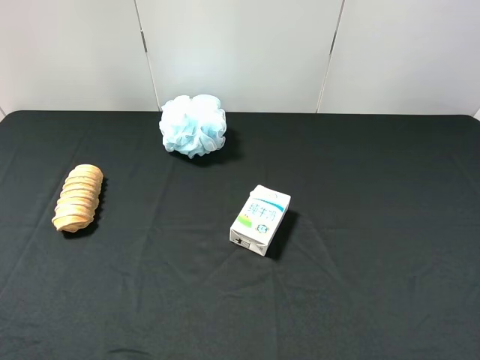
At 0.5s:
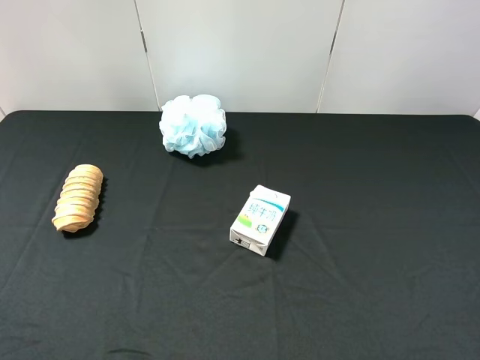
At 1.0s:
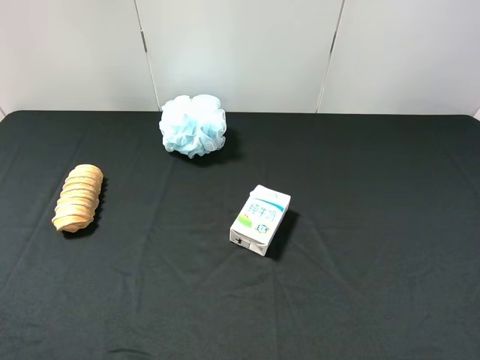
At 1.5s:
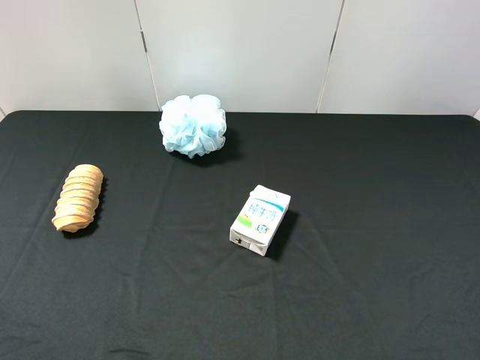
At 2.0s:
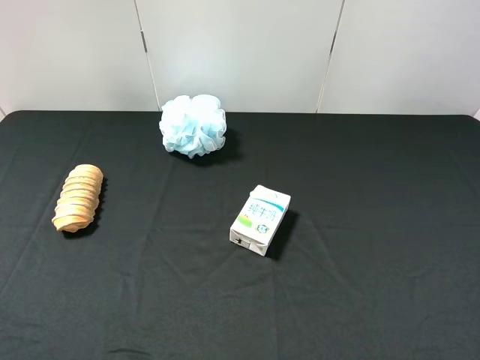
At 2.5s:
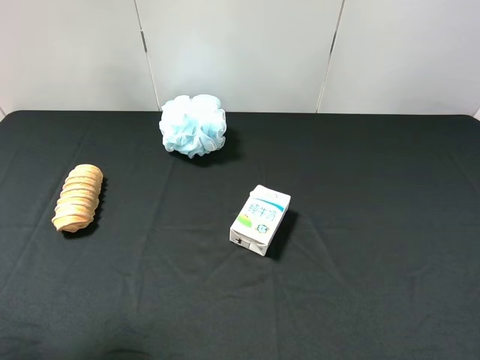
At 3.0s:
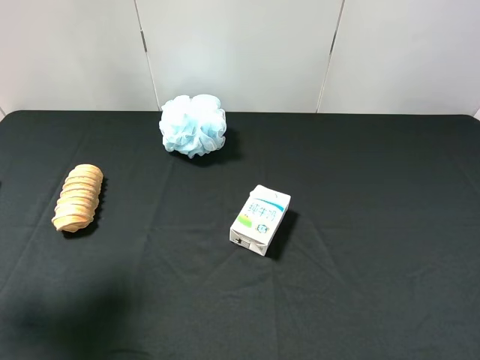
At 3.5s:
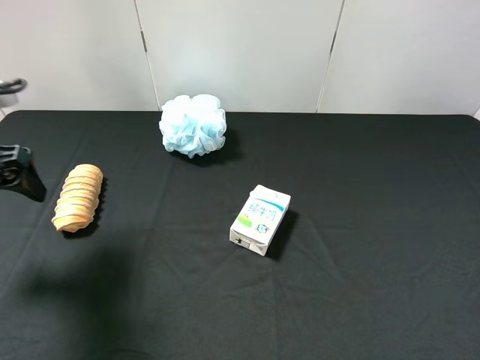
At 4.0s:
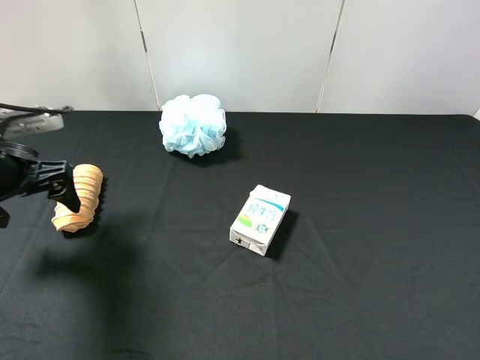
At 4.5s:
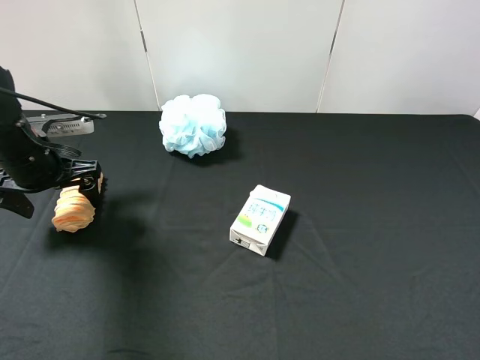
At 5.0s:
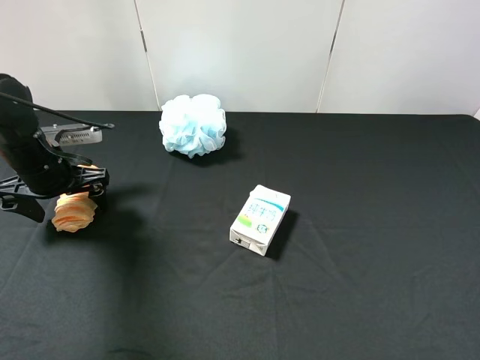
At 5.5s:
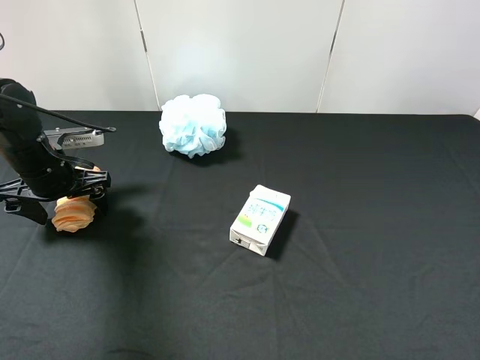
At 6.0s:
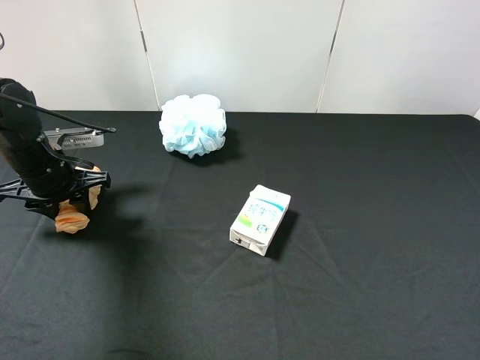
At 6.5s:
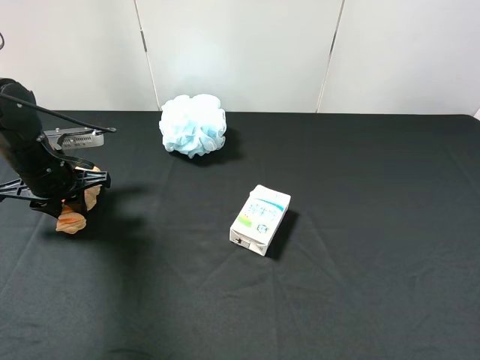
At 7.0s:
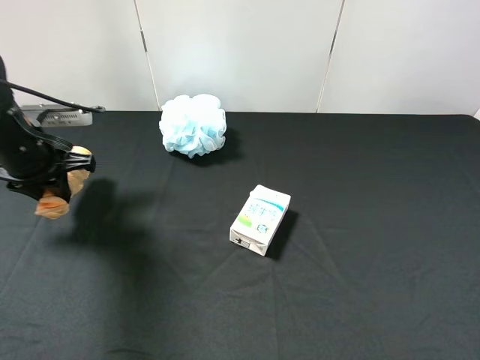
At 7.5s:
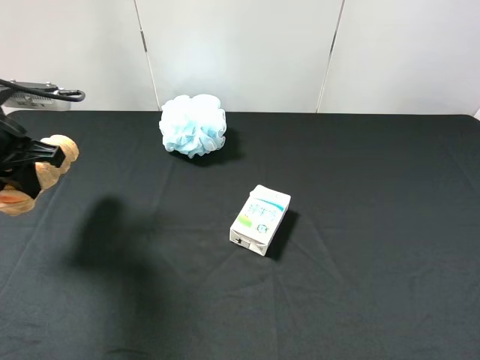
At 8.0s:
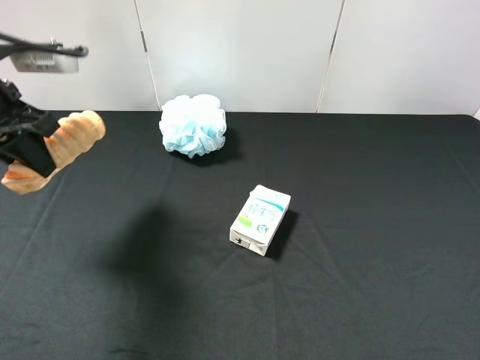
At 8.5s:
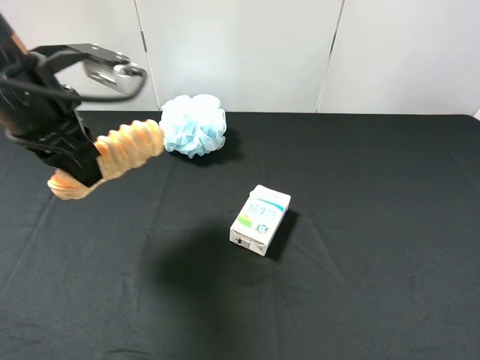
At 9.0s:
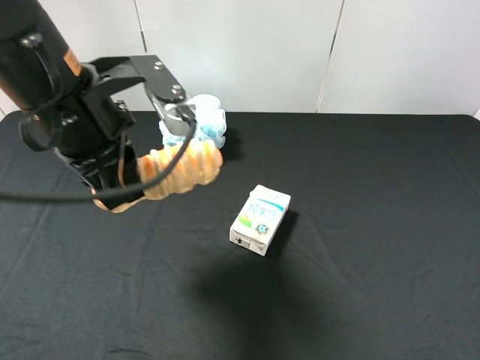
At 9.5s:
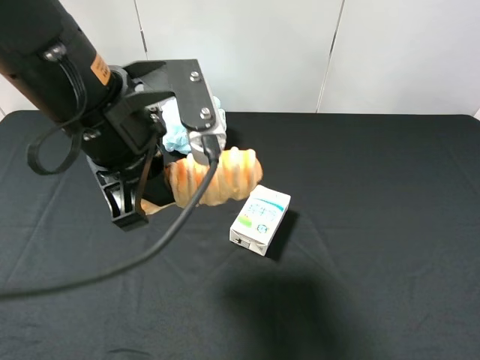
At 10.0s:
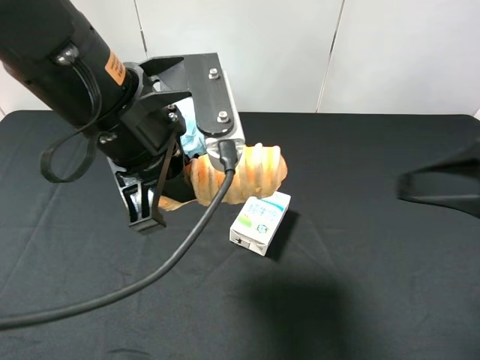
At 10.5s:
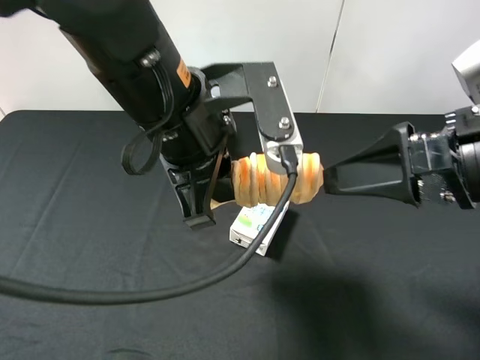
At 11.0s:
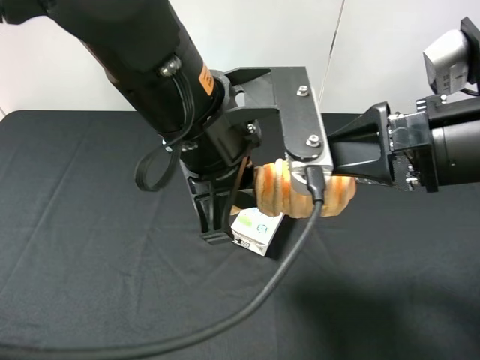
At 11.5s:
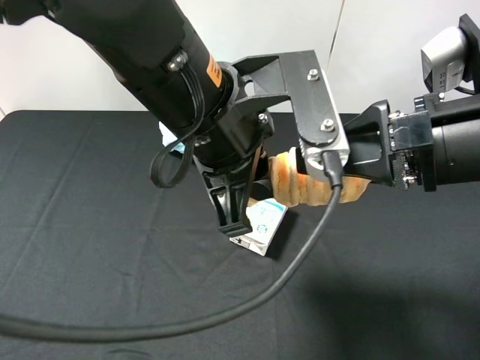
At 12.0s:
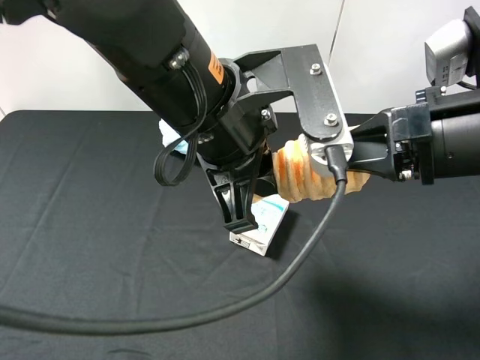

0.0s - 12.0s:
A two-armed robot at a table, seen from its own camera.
Task of the whole recording: use the left gripper to pick up the item and transfer it from the left gripper to the right gripper.
2.0s - 4.0s: The left gripper is displaced forward and downward by roughly 30 cm.
4.0s - 6.0s: The left gripper goes roughly 10 cm downward and forward, and closes its fingers.
6.0s - 8.0s: The left gripper goes some 15 cm upward.
8.0s - 10.0s: The left gripper heads to the right, covering some 20 cm, while the right gripper is displaced forward and to the left by about 10 cm.
10.0s - 12.0s: The left gripper heads to the right, covering about 5 cm. The right gripper is displaced forward by approximately 5 cm, and closes up.

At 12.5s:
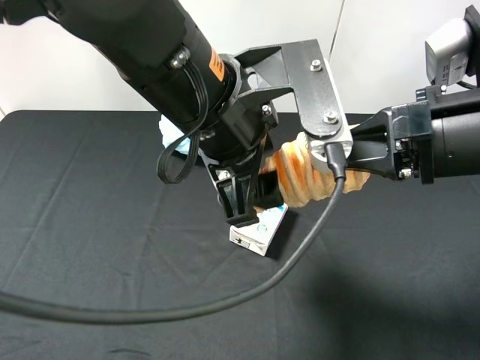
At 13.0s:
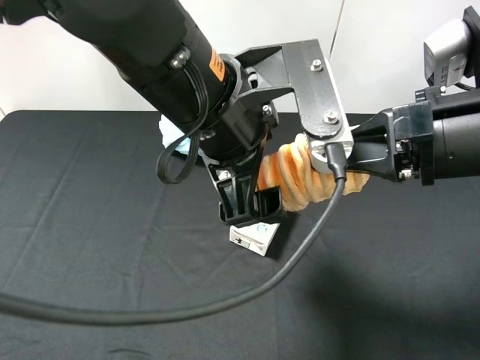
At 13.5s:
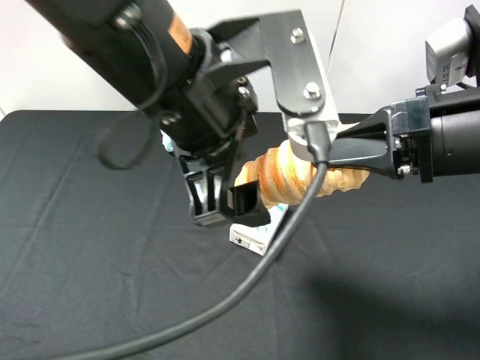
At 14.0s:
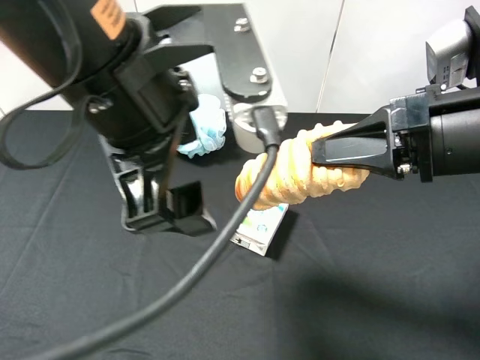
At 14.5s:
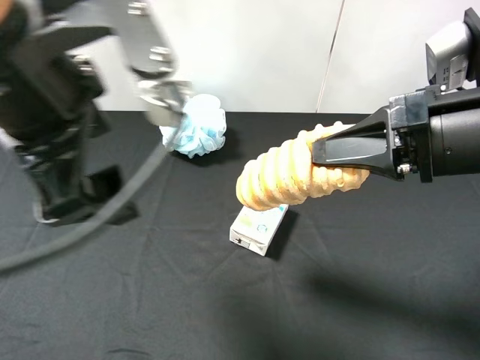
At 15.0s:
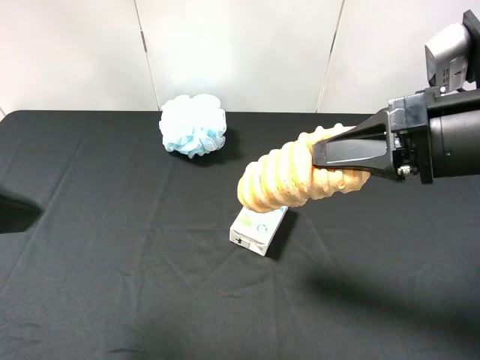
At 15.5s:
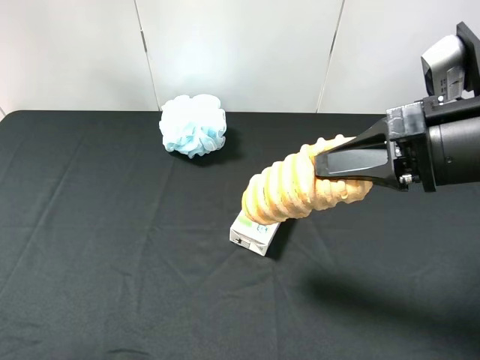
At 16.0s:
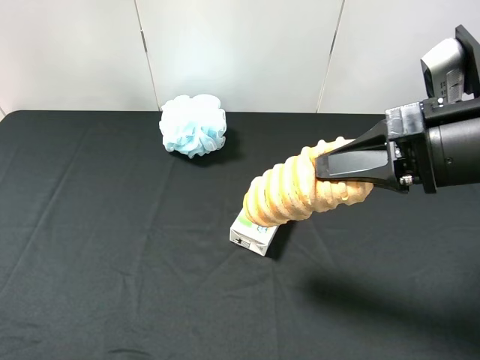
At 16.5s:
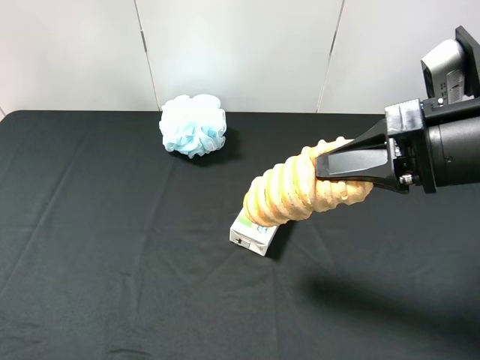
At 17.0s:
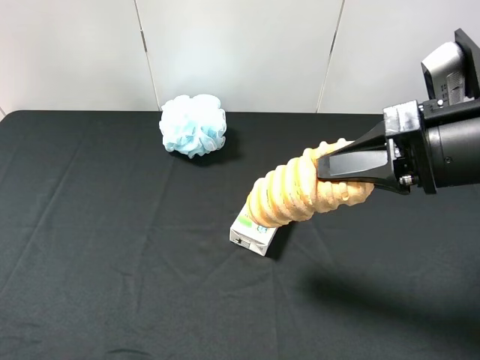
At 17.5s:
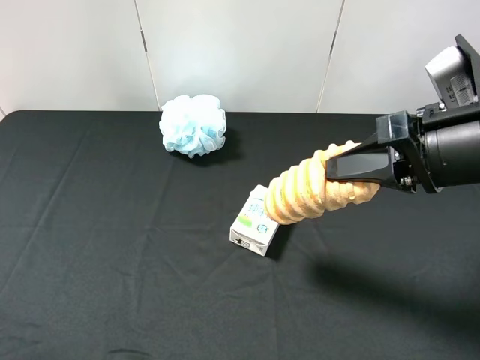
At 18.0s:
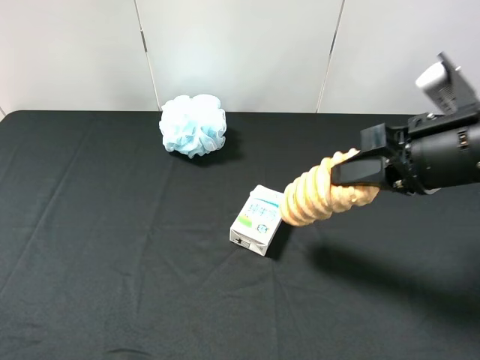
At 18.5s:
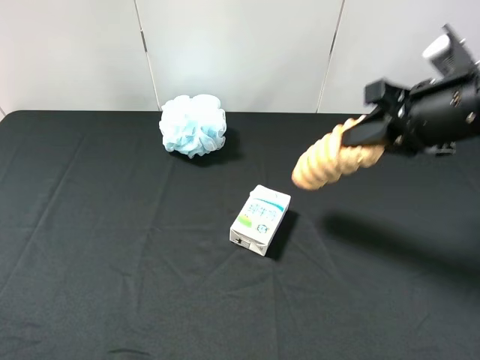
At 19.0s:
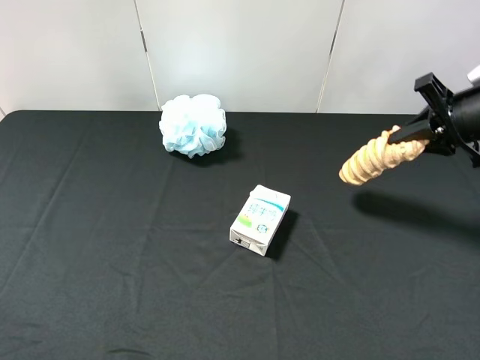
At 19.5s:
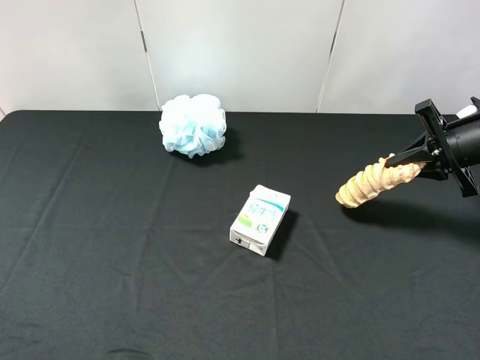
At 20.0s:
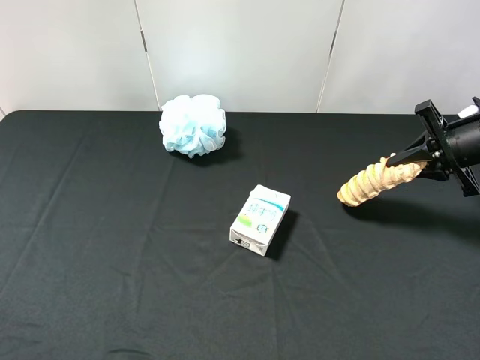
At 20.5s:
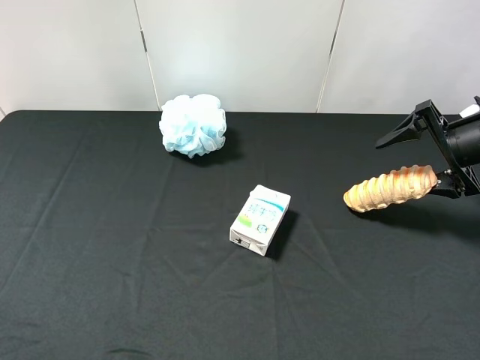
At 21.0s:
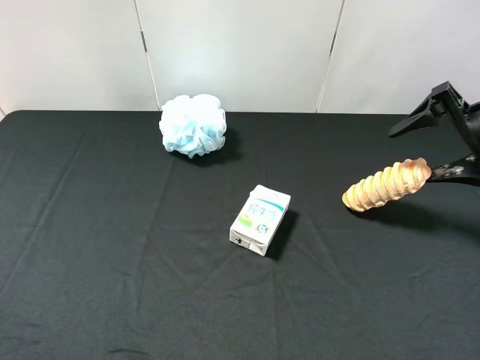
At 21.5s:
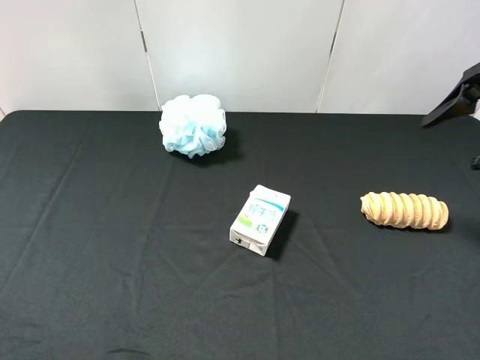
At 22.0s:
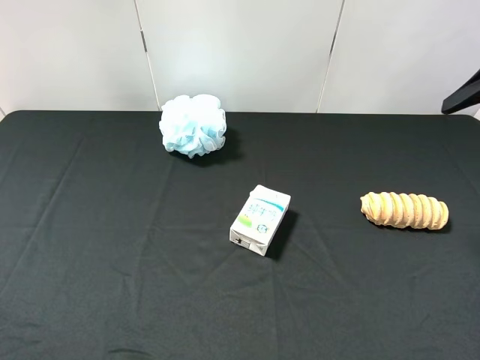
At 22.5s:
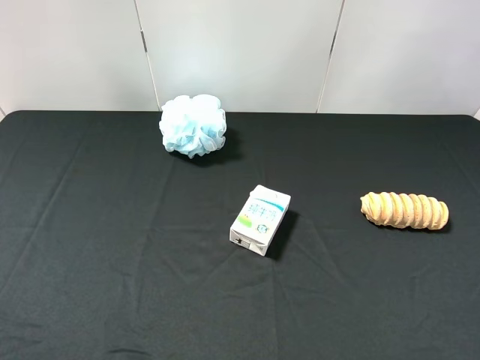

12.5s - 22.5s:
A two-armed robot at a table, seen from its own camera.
Task of the whole recording: use the left gripper to pick up the item and transfer it from the left gripper to the right gripper.
12.5s - 14.5s: The left gripper moves to the left and upward, some 15 cm.
14.5s - 16.5s: The left gripper is displaced to the left and backward by about 20 cm.
16.5s - 18.5s: The right gripper travels forward by approximately 10 cm.
18.5s - 20.5s: The right gripper travels to the right, downward and forward by roughly 15 cm, and opens.
20.5s - 22.5s: The right gripper travels upward and backward by approximately 25 cm.

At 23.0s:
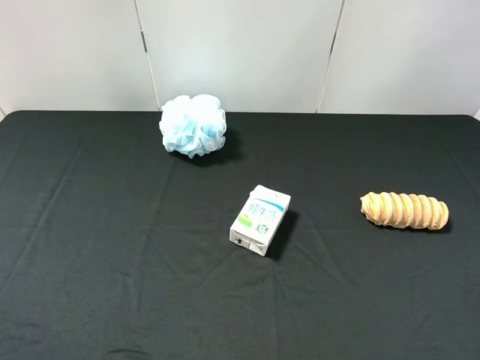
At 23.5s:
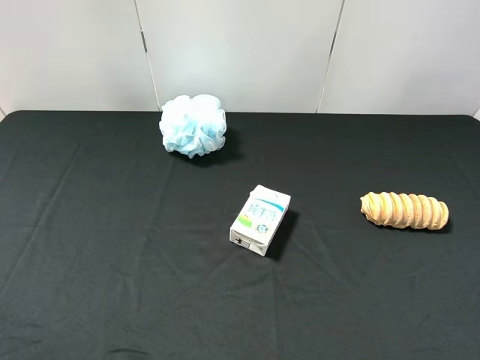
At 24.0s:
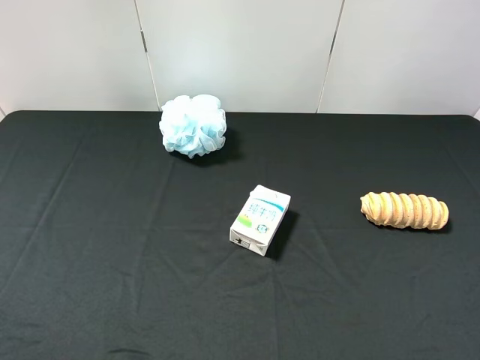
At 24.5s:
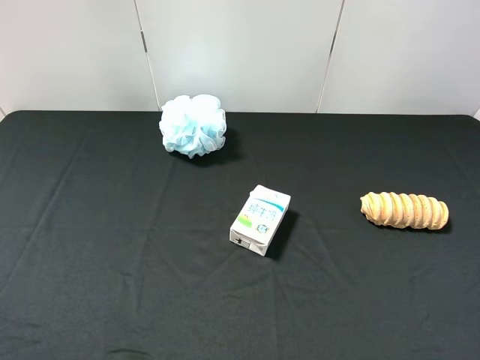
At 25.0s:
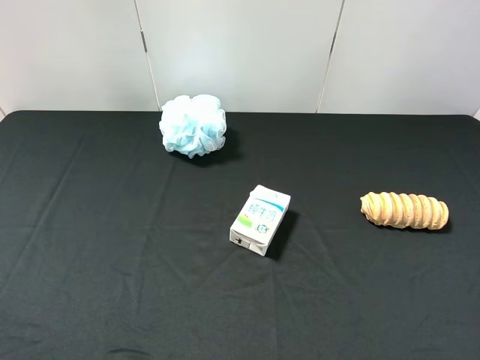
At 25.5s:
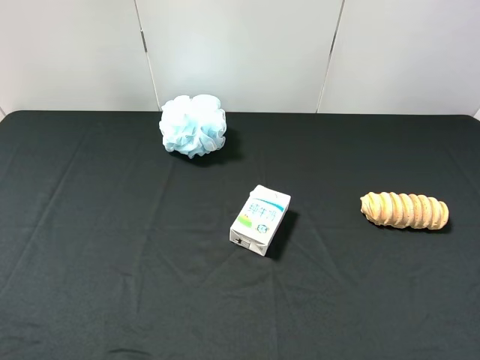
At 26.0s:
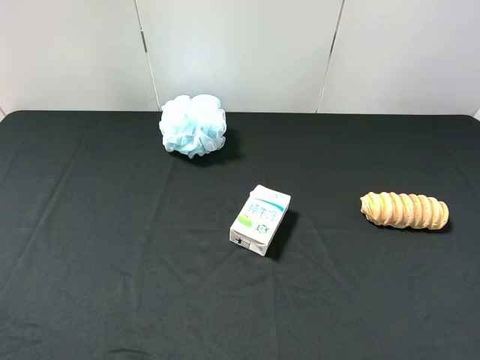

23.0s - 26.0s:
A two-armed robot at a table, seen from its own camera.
Task of the whole recording: use the left gripper to pick up the item and transfer it from the left gripper to the right gripper.
24.5s - 26.0s: Both grippers stay about where they are.
